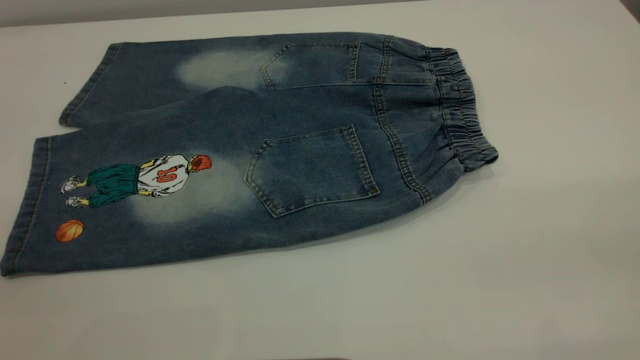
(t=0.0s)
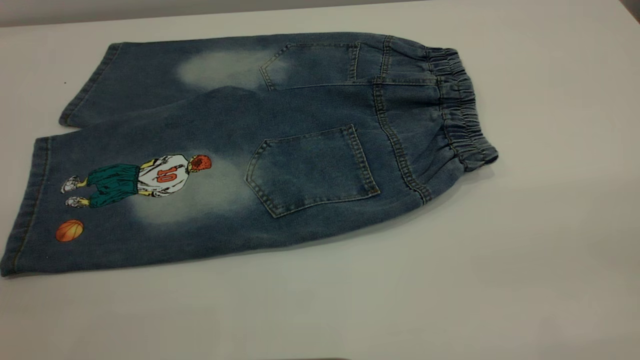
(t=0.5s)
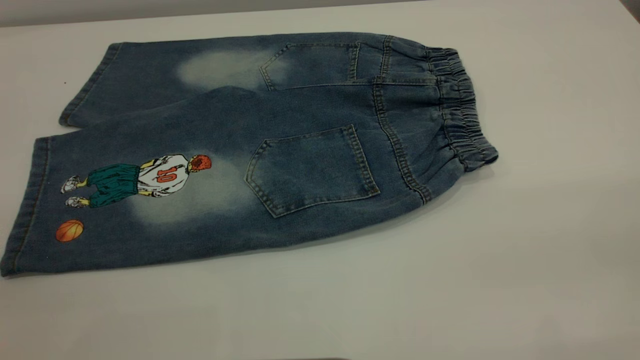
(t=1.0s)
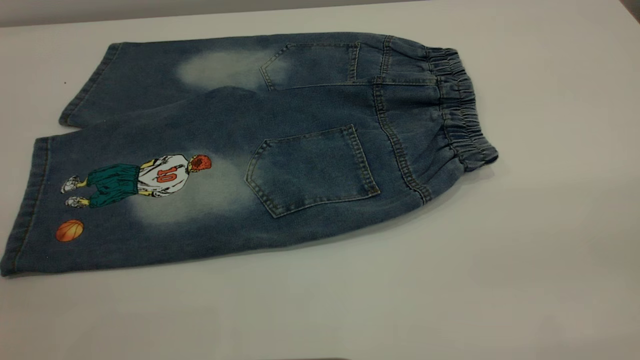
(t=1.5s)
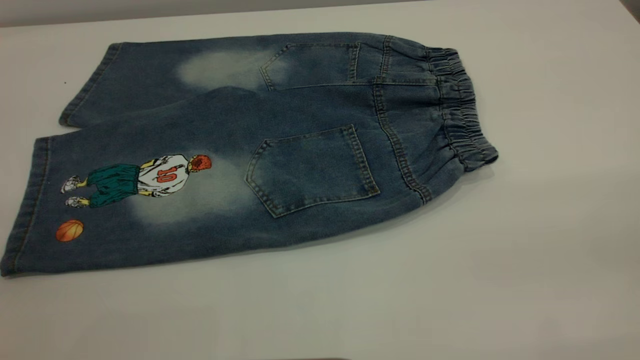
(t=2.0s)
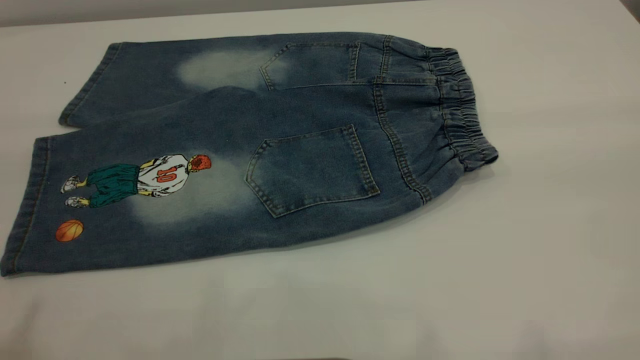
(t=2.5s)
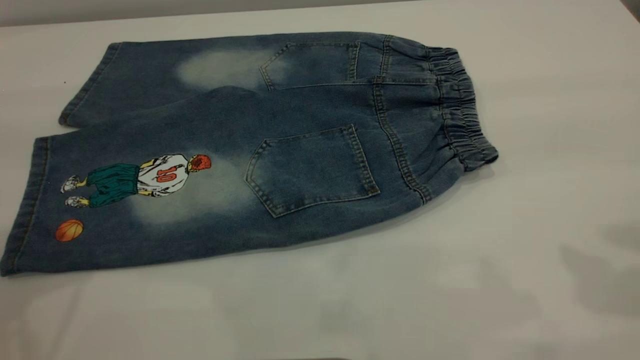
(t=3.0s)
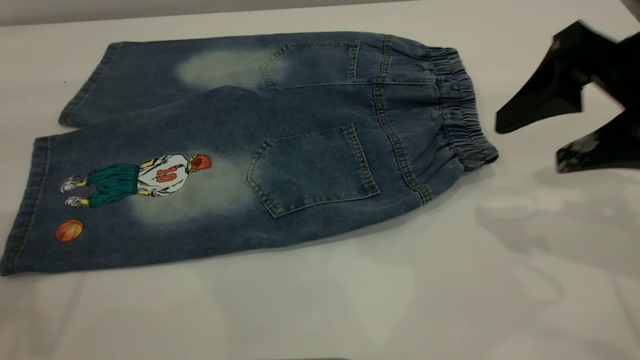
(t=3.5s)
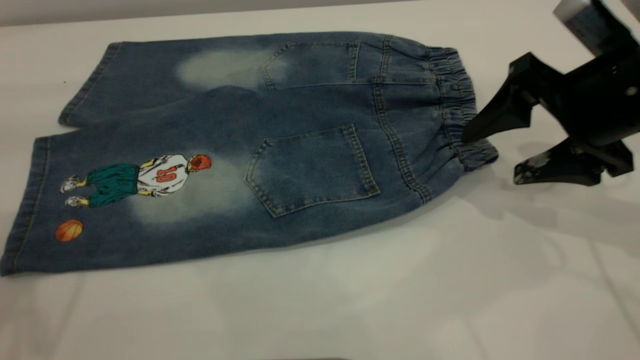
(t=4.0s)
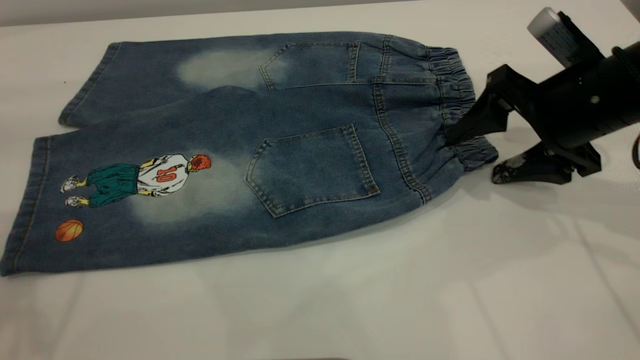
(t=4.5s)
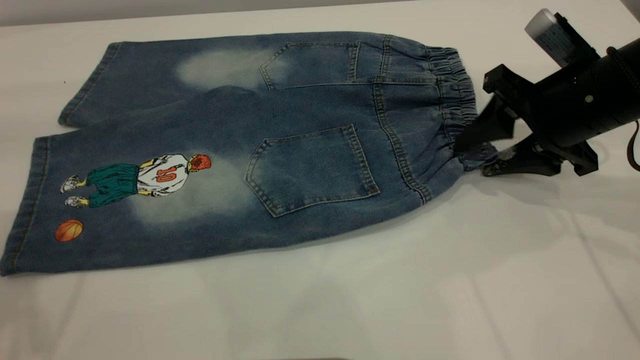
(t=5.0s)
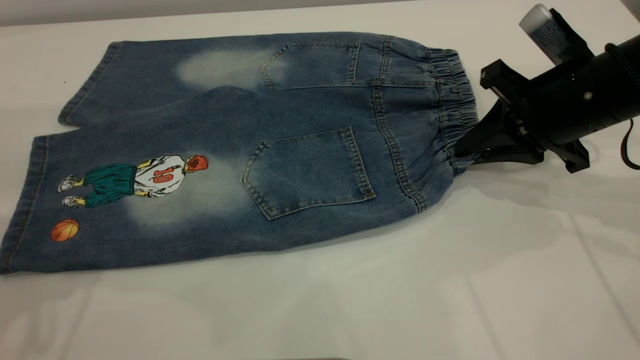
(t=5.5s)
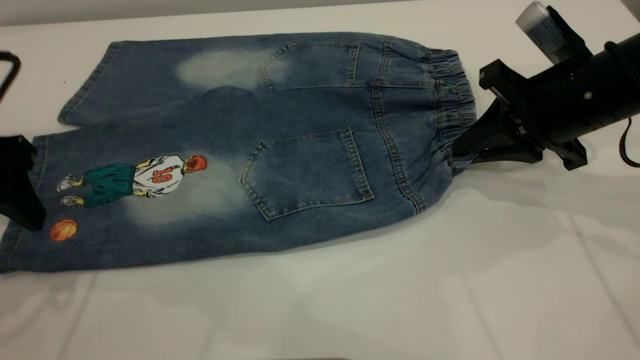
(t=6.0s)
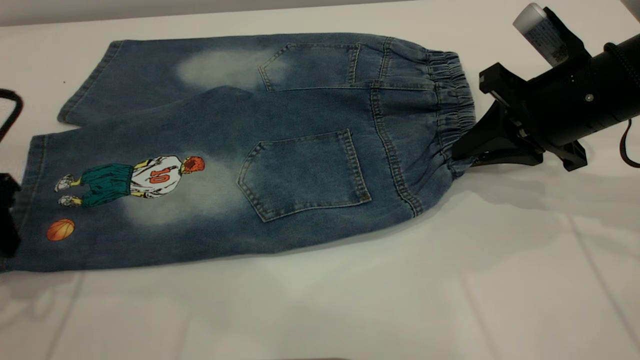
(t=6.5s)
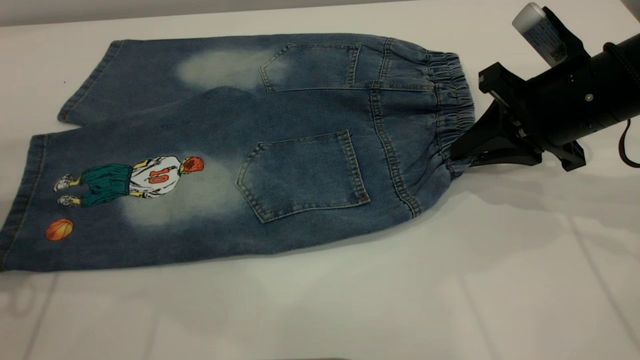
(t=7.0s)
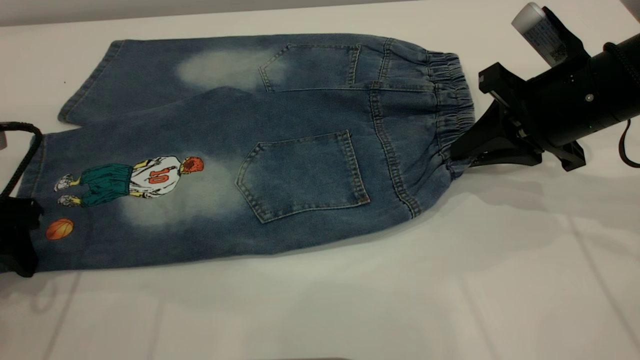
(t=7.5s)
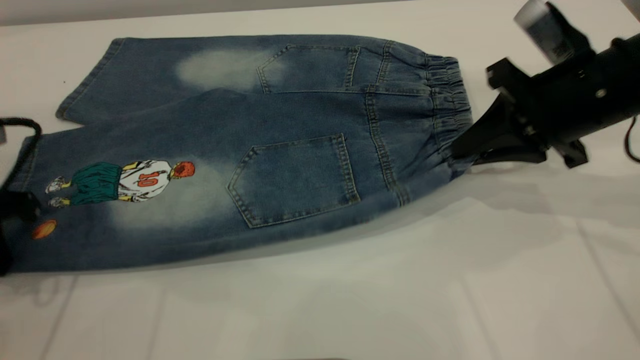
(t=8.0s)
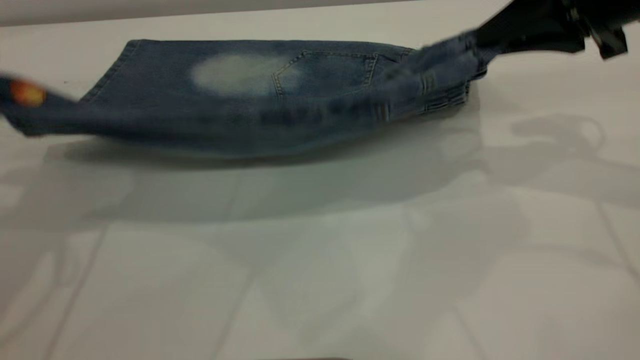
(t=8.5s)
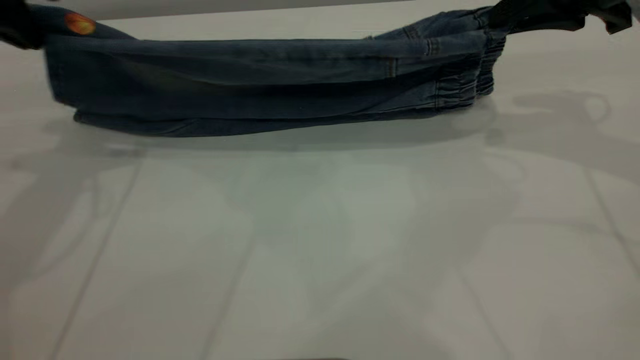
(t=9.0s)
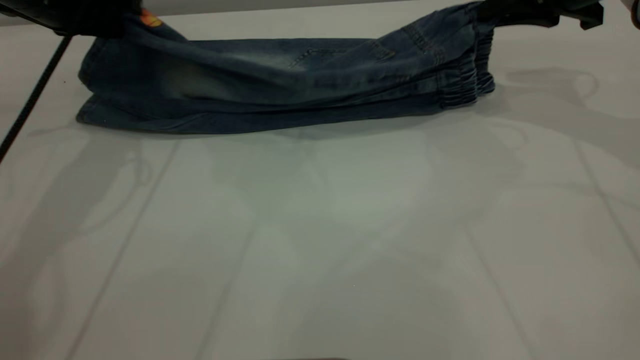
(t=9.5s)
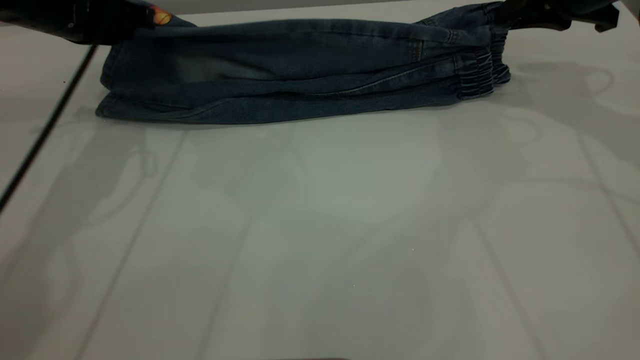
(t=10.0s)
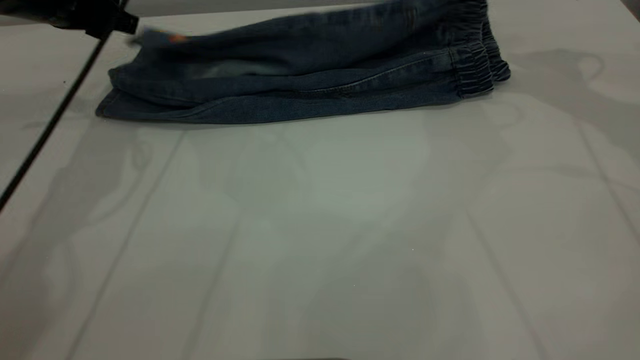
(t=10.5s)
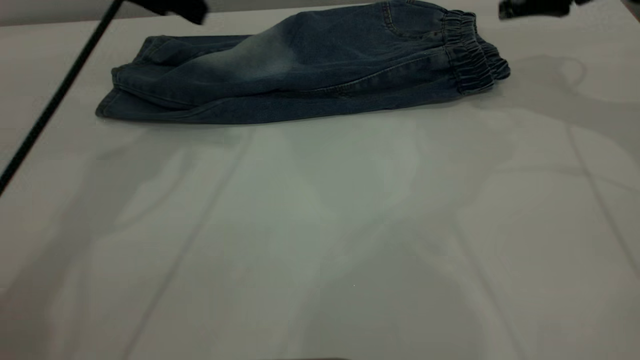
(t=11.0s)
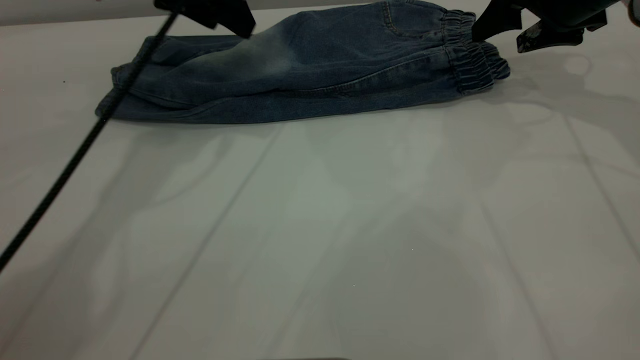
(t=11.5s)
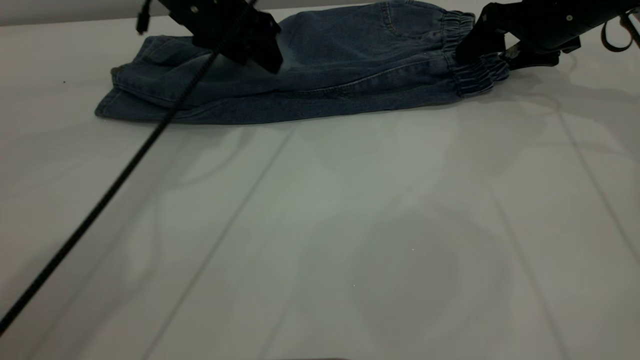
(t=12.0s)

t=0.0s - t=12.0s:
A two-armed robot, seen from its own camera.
Step, t=0.0s - t=10.5s: Fold the bottom of the pants upward.
t=0.0s - t=2.0s: Neither gripper changes place.
t=2.0s - t=4.0s: The right gripper heads forward and downward, covering approximately 35 cm.
t=4.0s - t=6.0s: The right gripper closes its fingers, while the left gripper travels downward by approximately 15 cm.
t=6.0s - t=8.0s: The left gripper closes its fingers.
t=8.0s - t=10.0s: The two grippers go some 15 cm forward.
t=10.0s - t=12.0s: The left gripper heads to the right, covering some 10 cm, and opens up; the right gripper is displaced downward by about 5 cm, and opens.

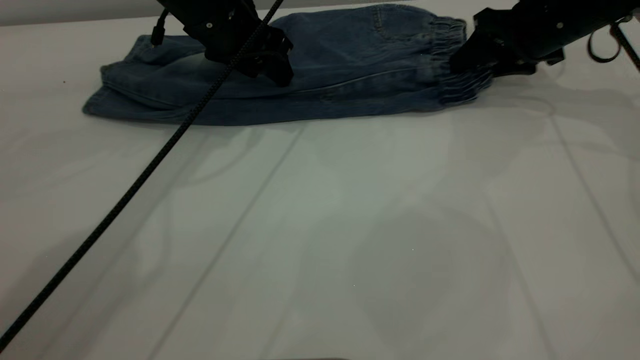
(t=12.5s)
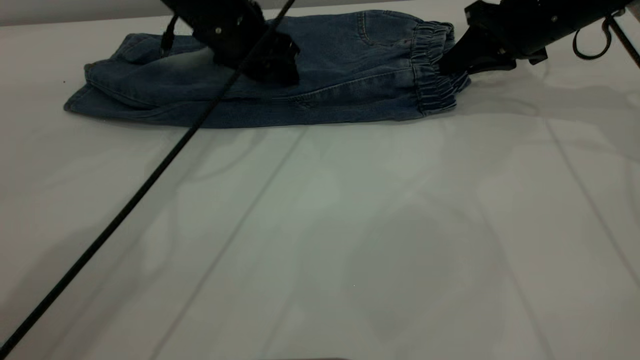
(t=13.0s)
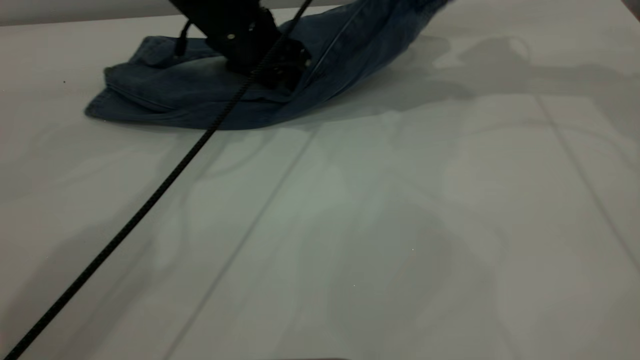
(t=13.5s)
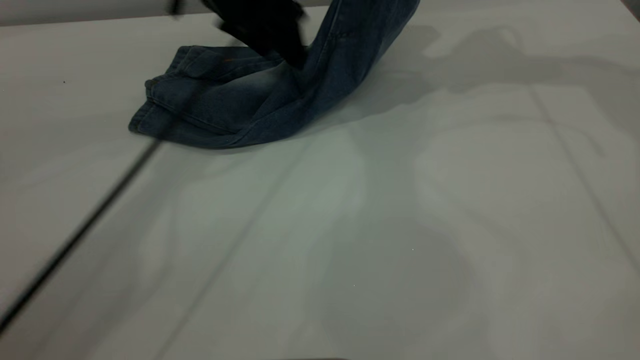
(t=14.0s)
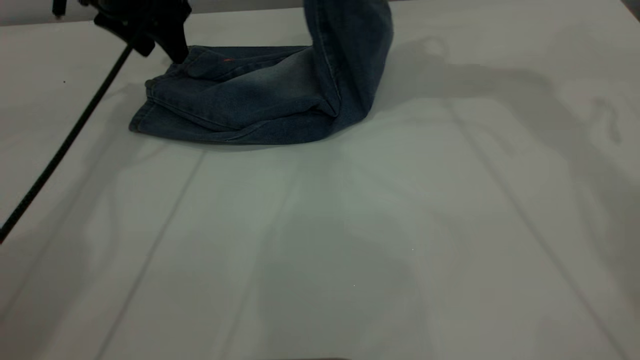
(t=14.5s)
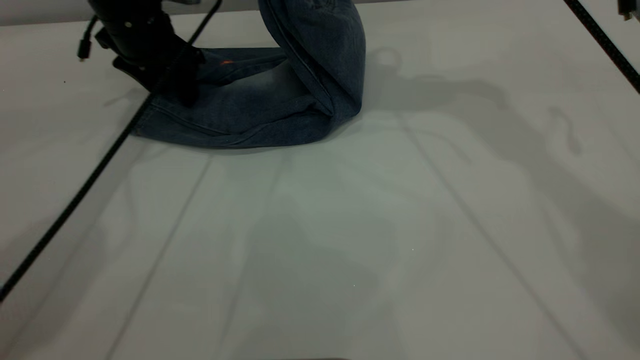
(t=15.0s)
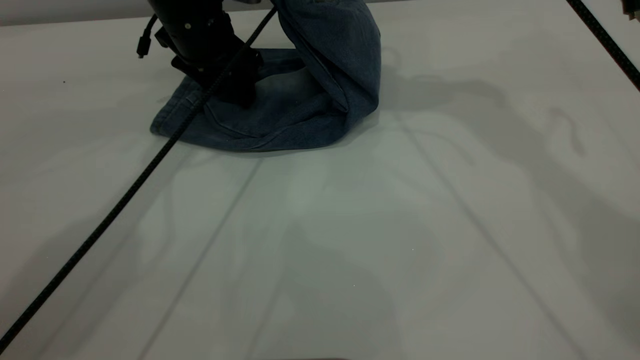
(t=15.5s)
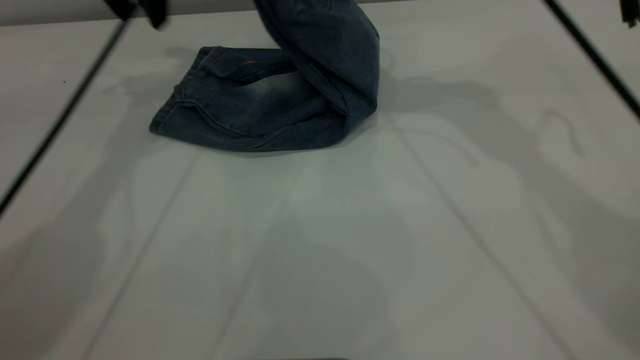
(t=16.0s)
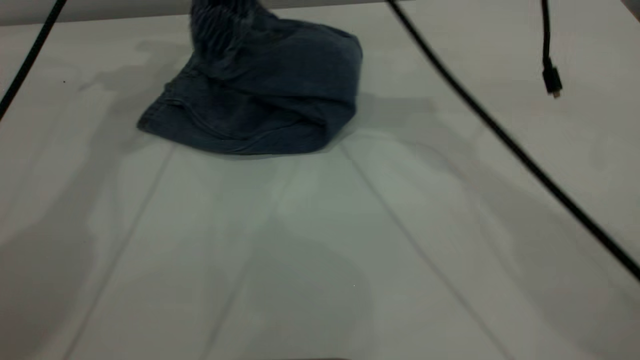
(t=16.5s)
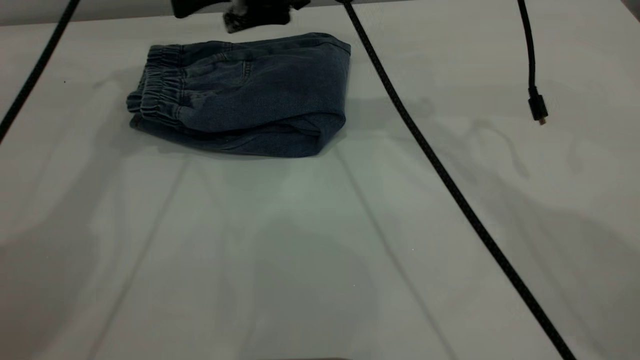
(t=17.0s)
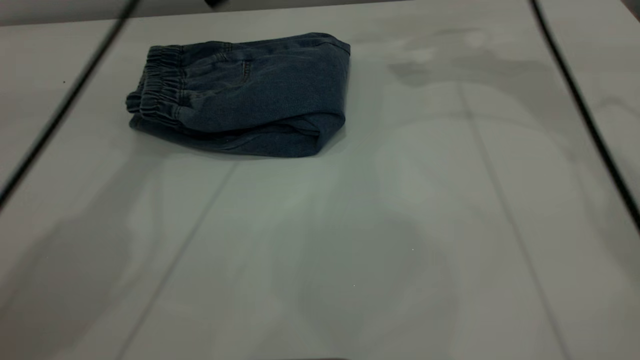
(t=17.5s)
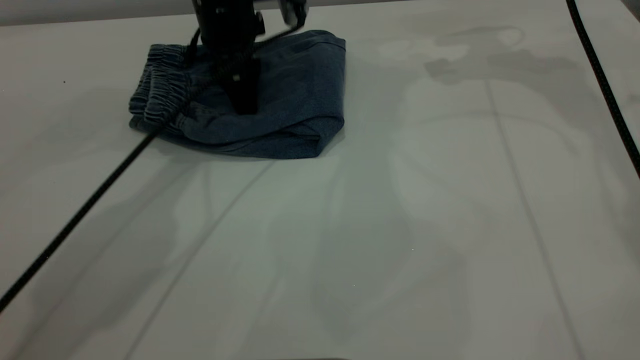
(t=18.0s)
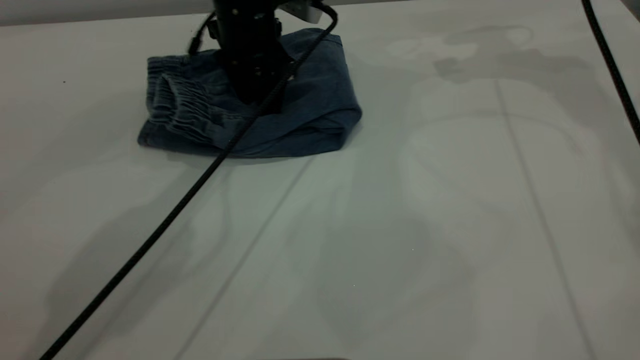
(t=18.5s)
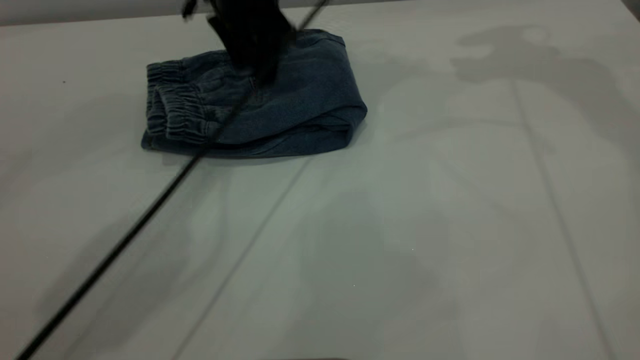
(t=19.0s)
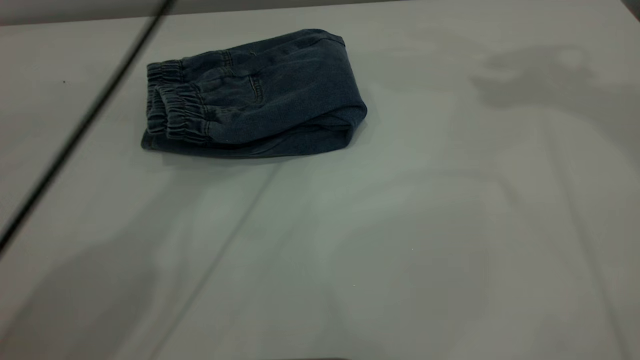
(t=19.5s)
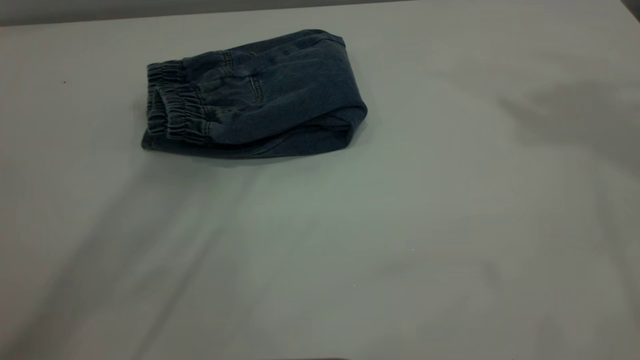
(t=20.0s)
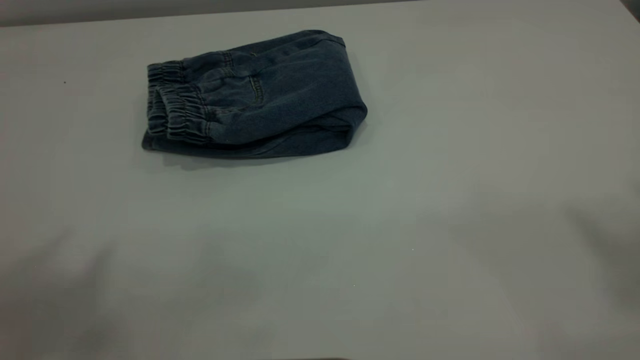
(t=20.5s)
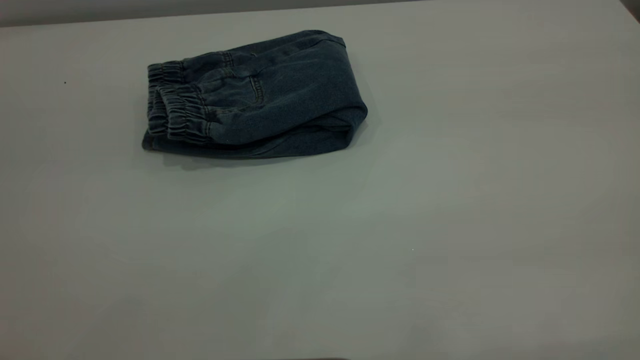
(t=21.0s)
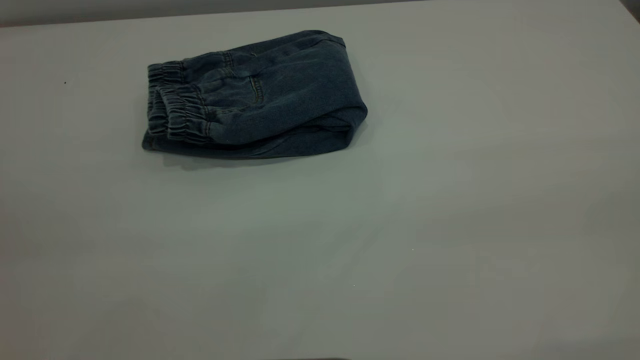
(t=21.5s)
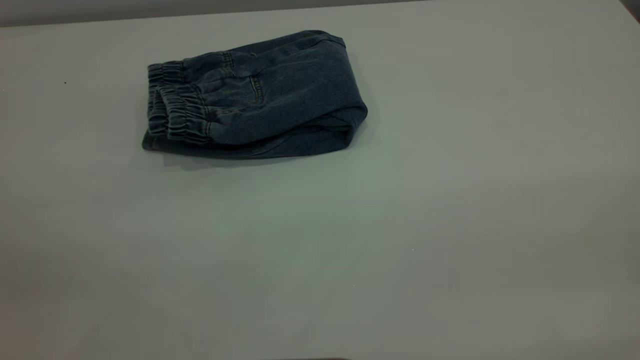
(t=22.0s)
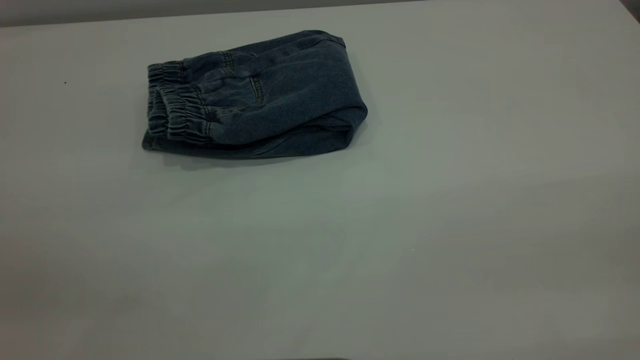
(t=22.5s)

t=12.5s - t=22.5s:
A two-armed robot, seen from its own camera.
Step, t=12.5s - t=17.0s: Fold your pants from right to left.
t=12.5s - t=14.5s: The right gripper heads upward and to the left, covering roughly 25 cm, and closes, while the left gripper goes approximately 10 cm to the left.
t=14.5s - t=16.5s: The left gripper moves upward, some 10 cm. Meanwhile the right gripper shifts roughly 15 cm to the left and downward.
t=16.5s - t=18.5s: The right gripper moves to the right, about 25 cm, and opens. The left gripper heads downward and to the right, covering roughly 20 cm.
t=18.5s - t=20.5s: The two grippers go approximately 50 cm upward and backward.
